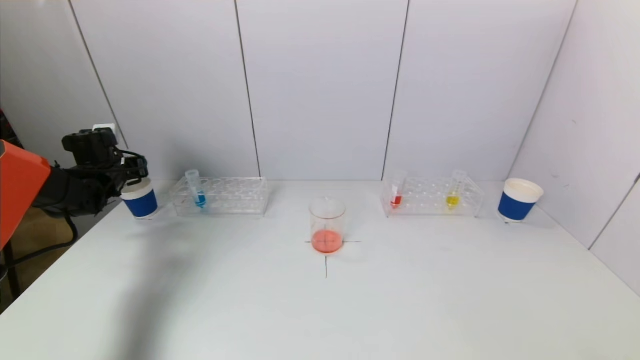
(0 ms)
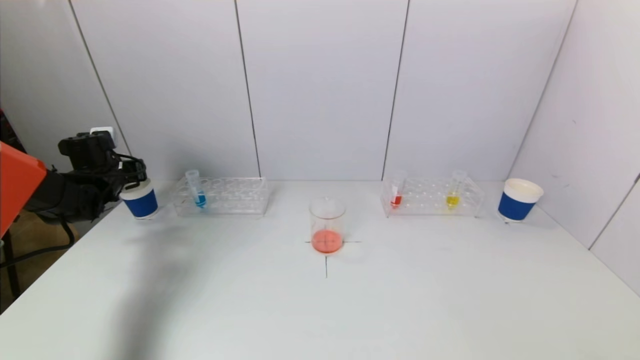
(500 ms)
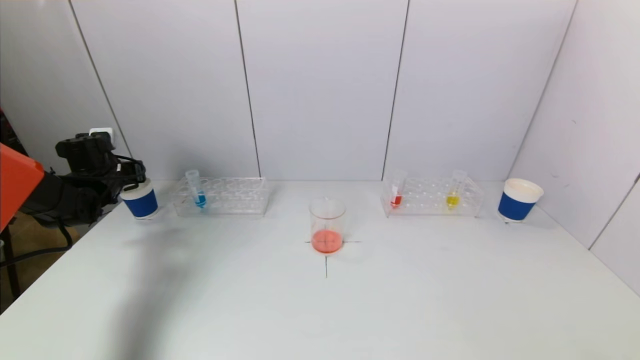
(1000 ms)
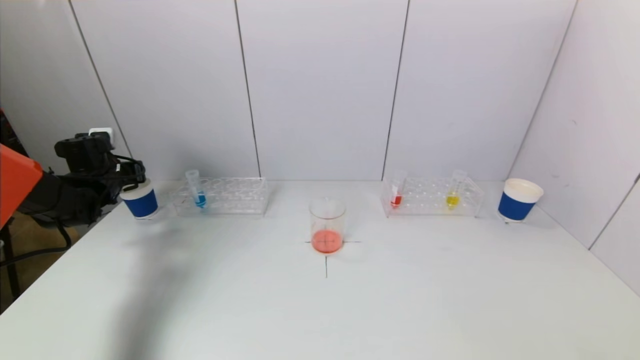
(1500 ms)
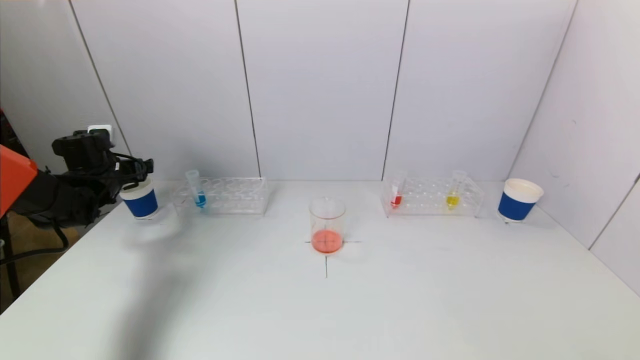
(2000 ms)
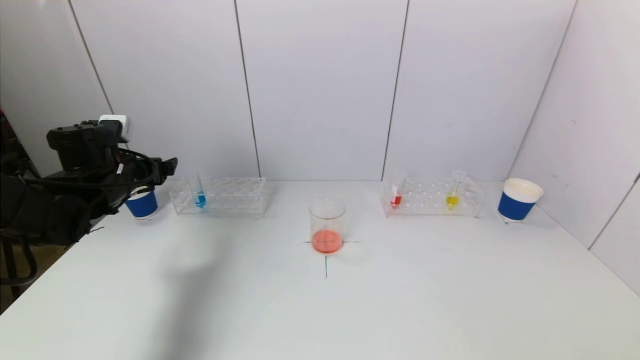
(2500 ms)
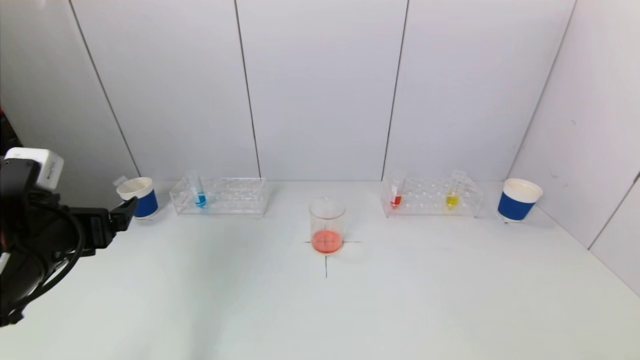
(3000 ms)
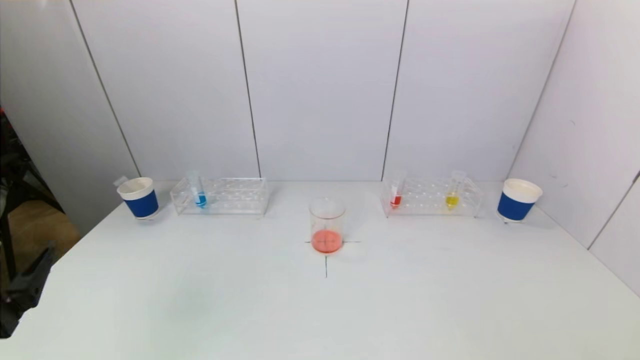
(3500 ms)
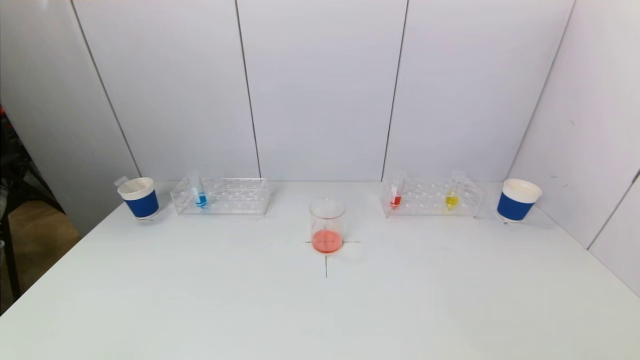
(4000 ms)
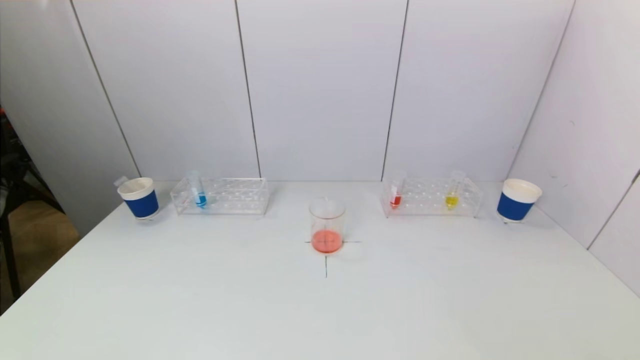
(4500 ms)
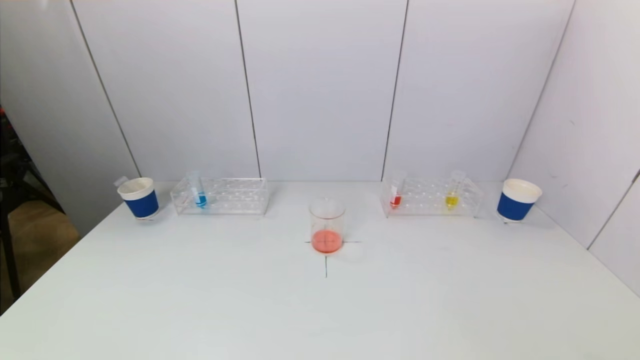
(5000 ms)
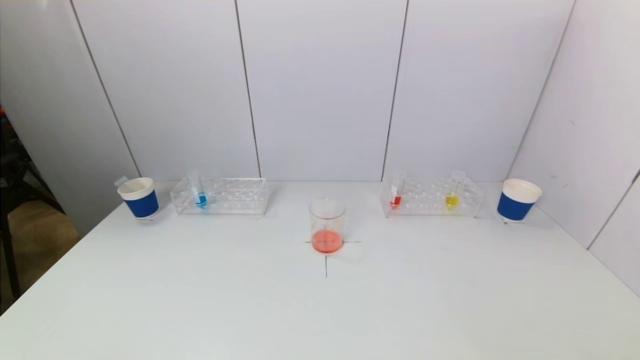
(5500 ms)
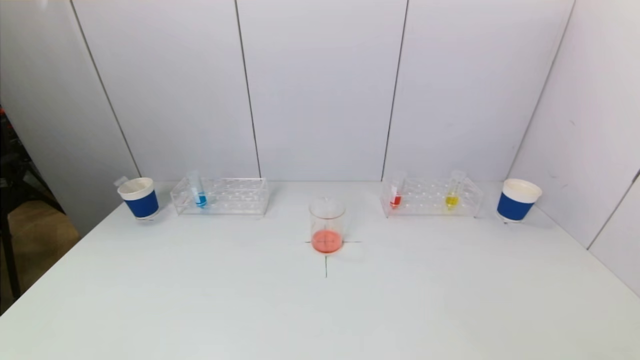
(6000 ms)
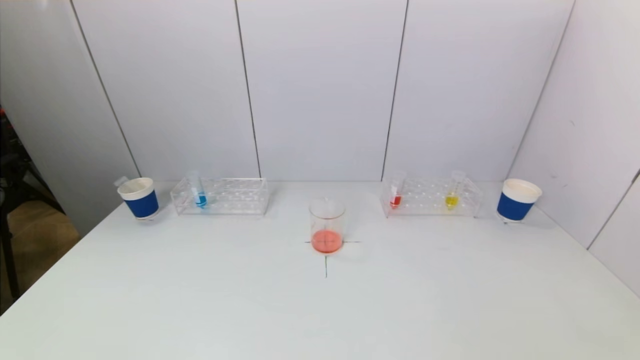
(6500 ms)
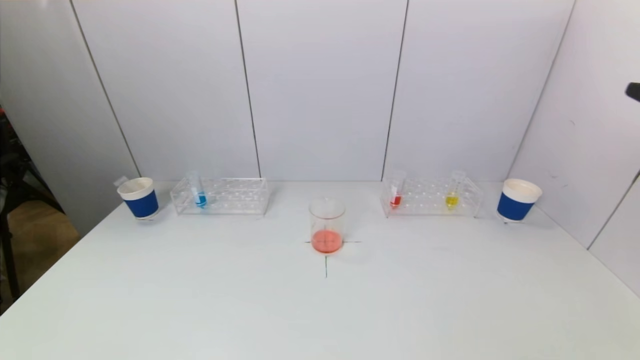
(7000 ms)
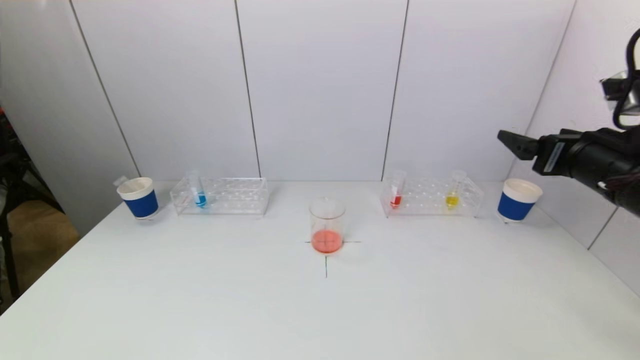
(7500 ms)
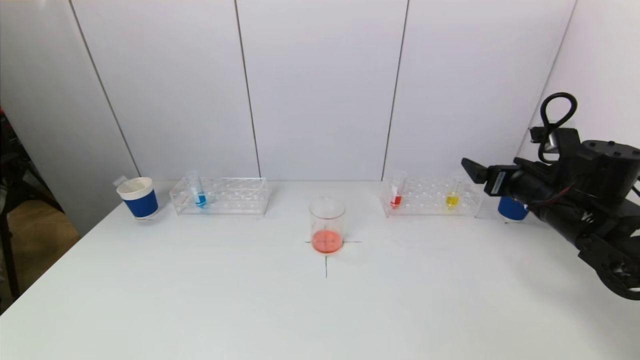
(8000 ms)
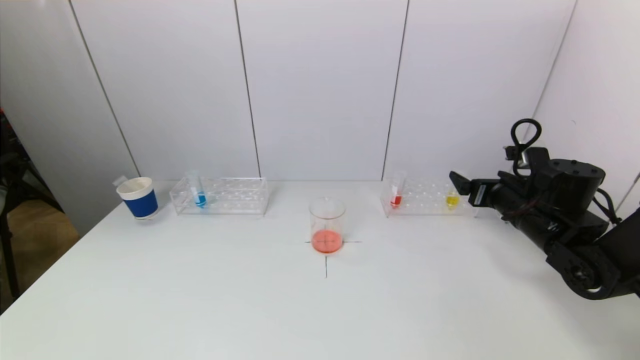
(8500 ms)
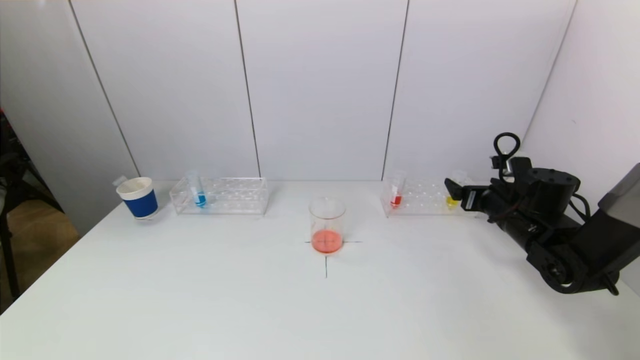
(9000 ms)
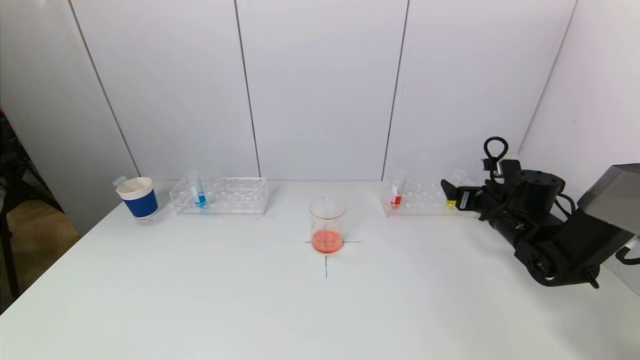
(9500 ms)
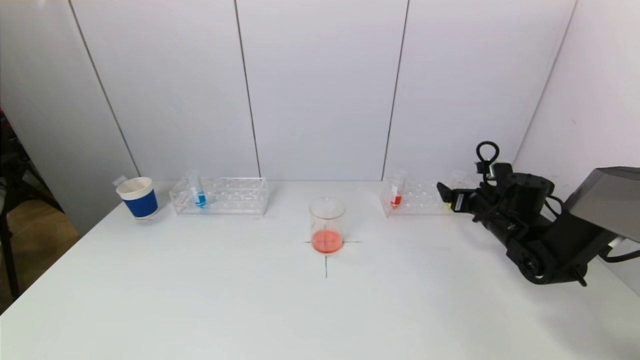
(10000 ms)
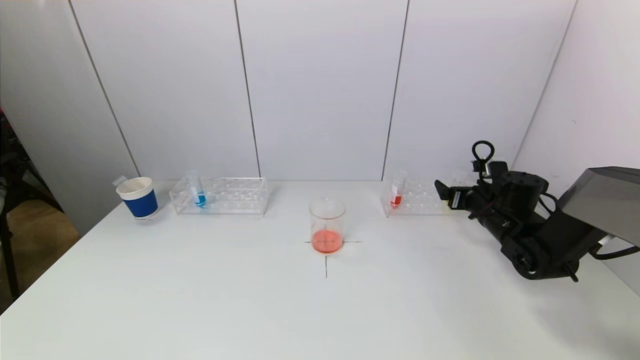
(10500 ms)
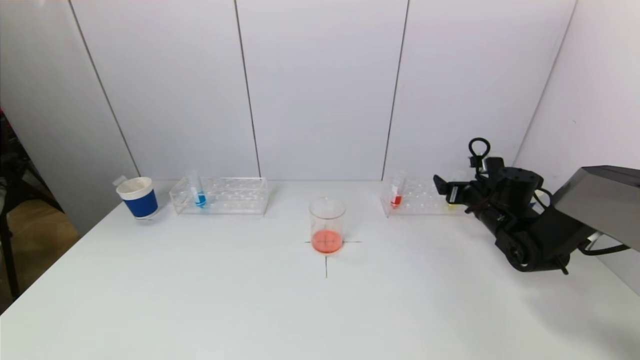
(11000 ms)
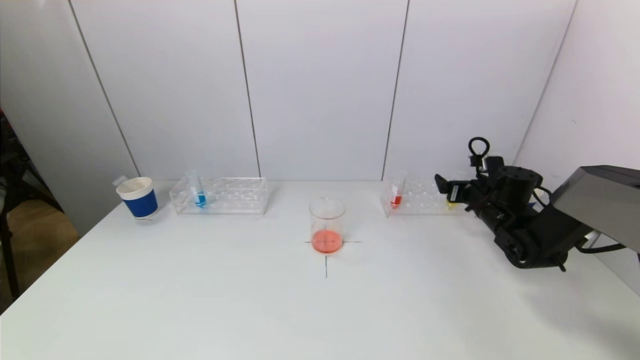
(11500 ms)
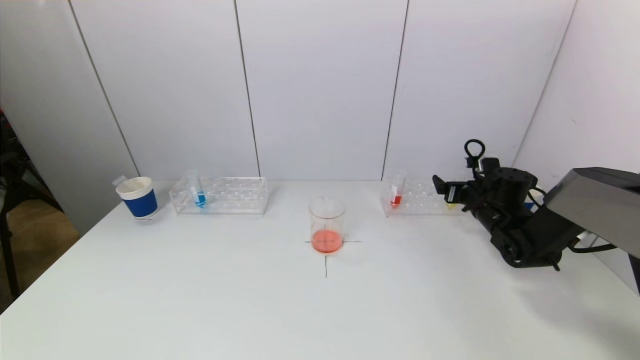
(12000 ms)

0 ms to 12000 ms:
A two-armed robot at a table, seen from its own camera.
Task of the whole recording: pick up a test tube with pigment on left test tube rack and a test tube with pigment on right test tube rack by grippers and pour them into the beaker.
0 ms to 2000 ms: The left gripper opens up.
2000 ms to 4000 ms: The left gripper goes about 50 cm backward.
6000 ms to 8000 ms: The right gripper moves forward, about 35 cm.
8000 ms to 10000 ms: The right gripper is displaced downward and forward by about 15 cm.
10000 ms to 12000 ms: There are only small adjustments of the grippers.

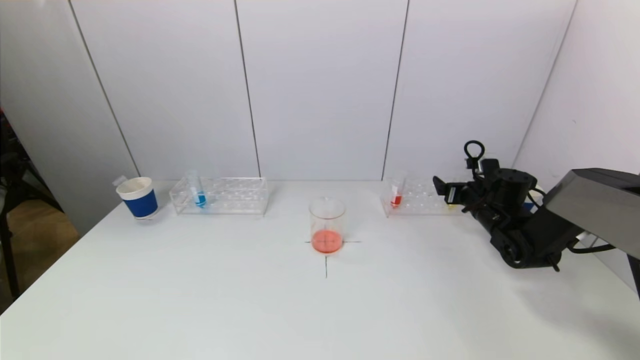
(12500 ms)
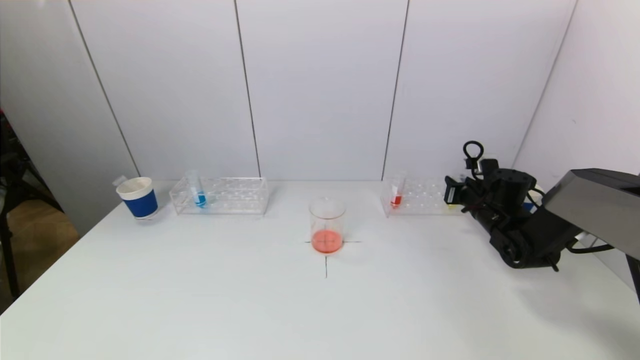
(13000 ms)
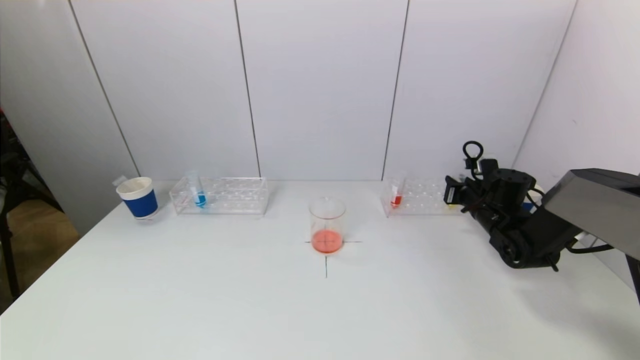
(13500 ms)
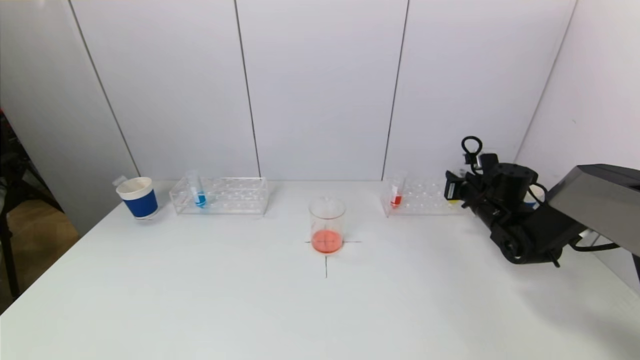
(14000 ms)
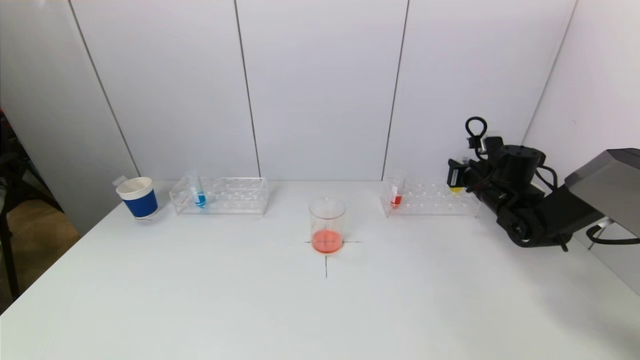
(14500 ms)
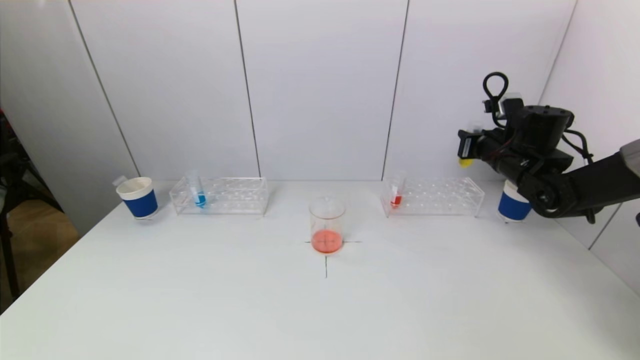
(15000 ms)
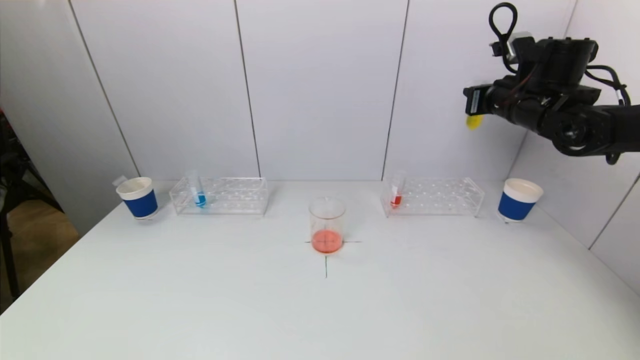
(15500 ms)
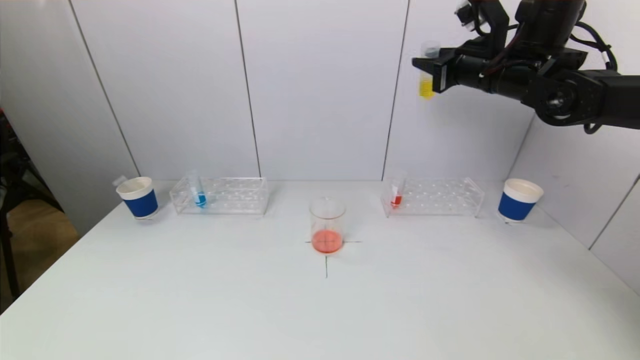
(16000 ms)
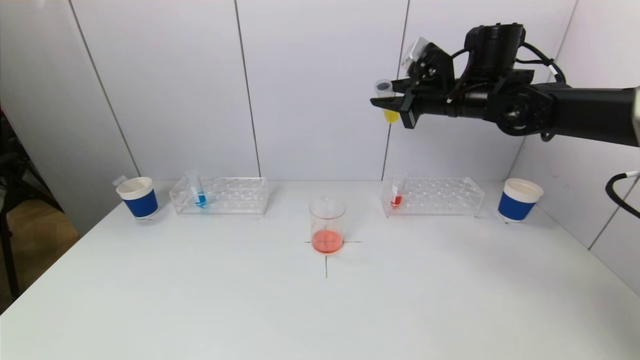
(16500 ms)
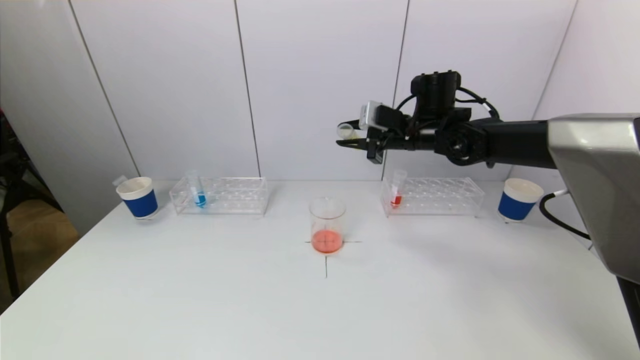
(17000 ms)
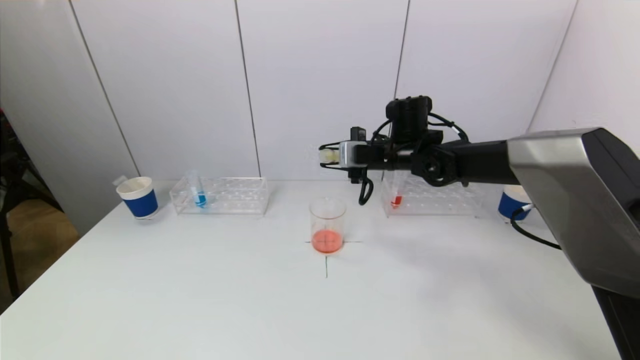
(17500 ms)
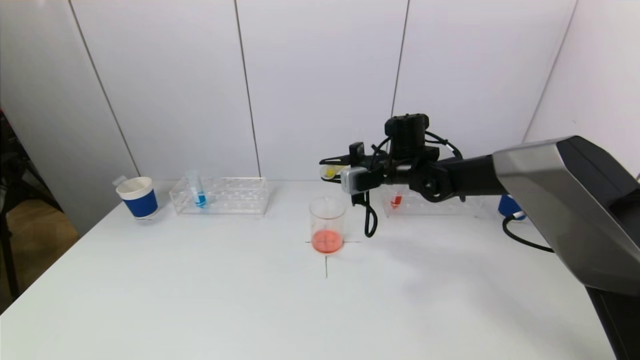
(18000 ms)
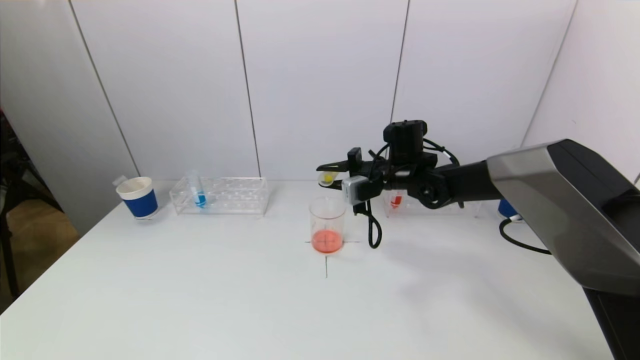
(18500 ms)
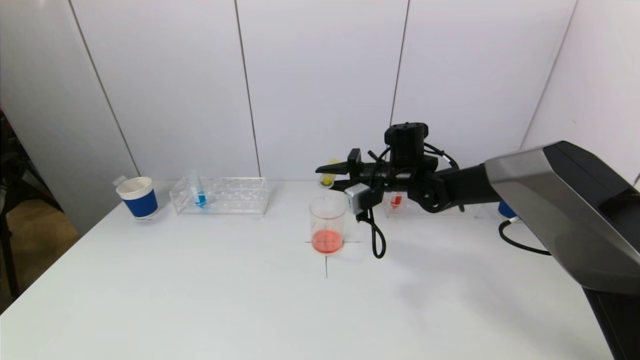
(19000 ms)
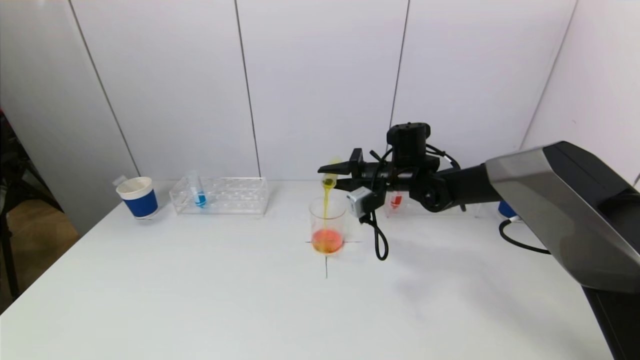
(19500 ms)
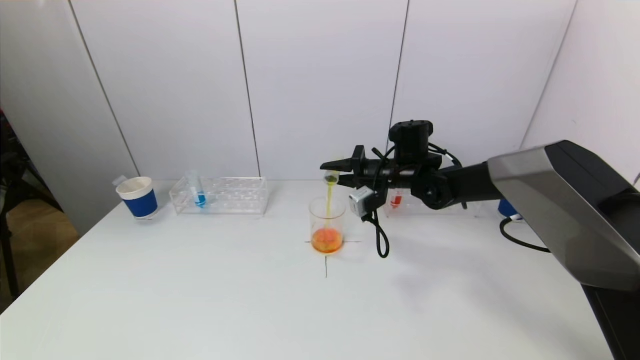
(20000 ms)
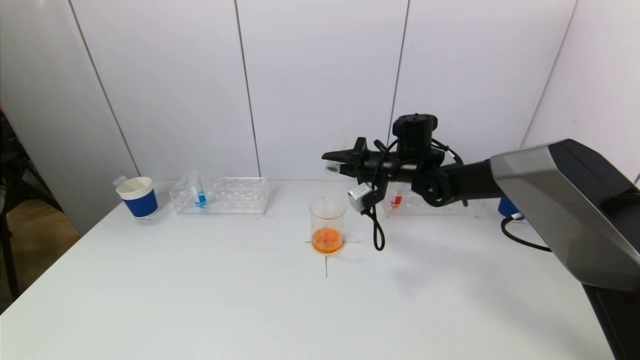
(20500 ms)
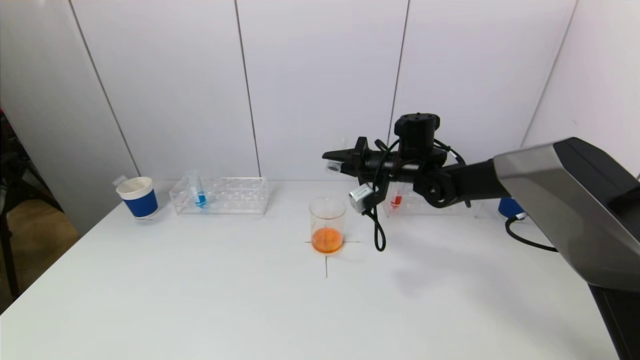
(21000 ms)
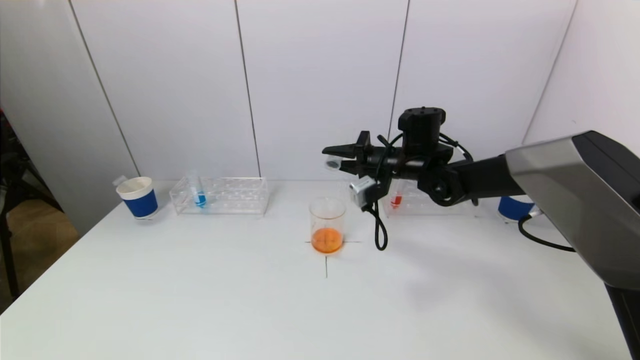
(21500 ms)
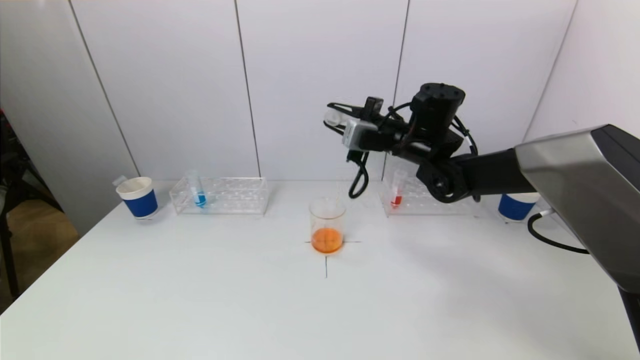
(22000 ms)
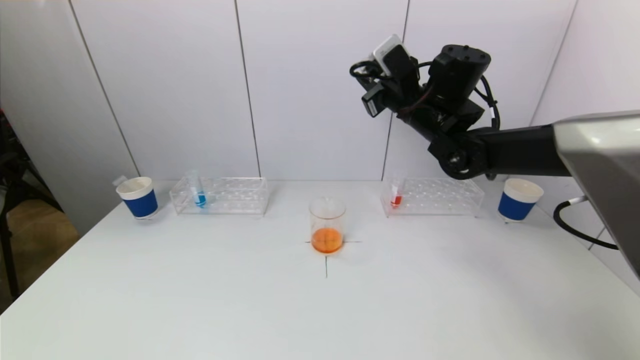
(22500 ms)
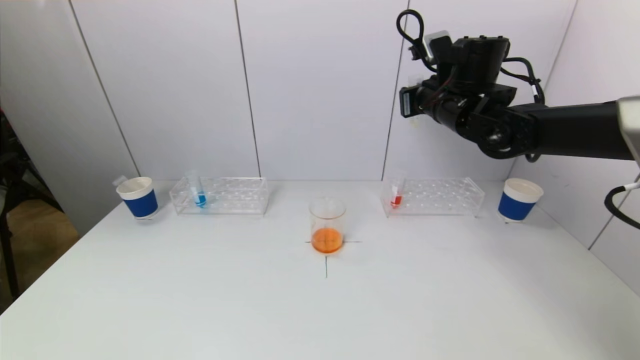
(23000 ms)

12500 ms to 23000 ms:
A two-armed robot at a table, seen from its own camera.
Task of the whole recording: pick up a test tube with pigment on left test tube rack and a test tube with pigment on right test tube rack by grippers and pour them into the beaker.
Step, 13500 ms to 20500 ms: Pour the yellow reagent into the graduated cylinder with the right gripper.
12500 ms to 14500 ms: The right gripper closes its fingers.
14500 ms to 16500 ms: The right gripper is displaced upward and to the left by some 20 cm.
16500 ms to 19000 ms: The right gripper travels downward and to the left by some 15 cm.
21000 ms to 23000 ms: The right gripper moves upward and to the right, about 15 cm.
